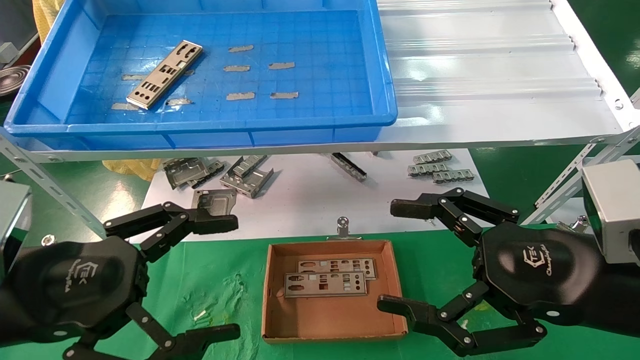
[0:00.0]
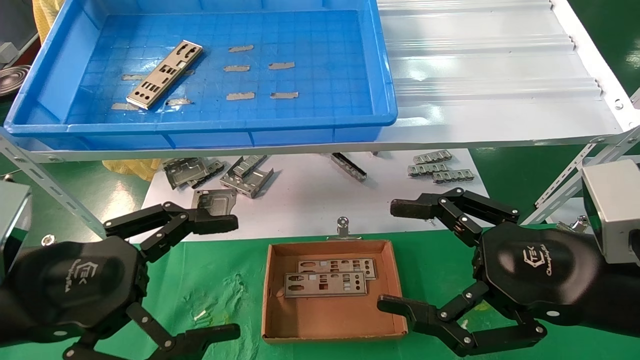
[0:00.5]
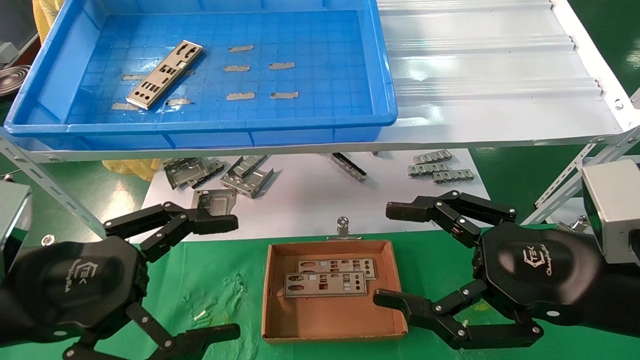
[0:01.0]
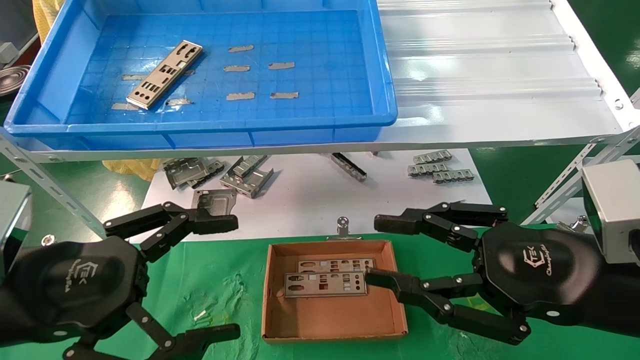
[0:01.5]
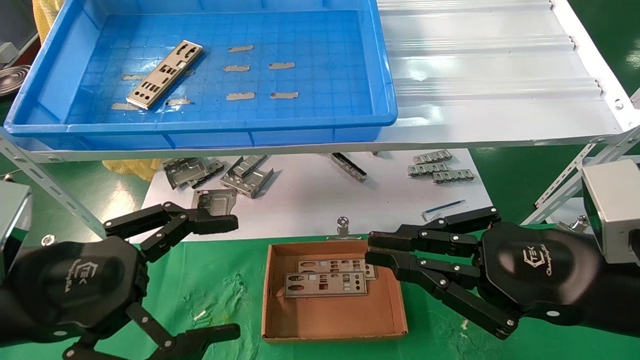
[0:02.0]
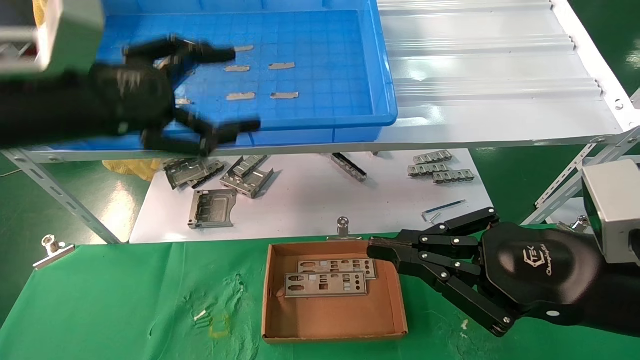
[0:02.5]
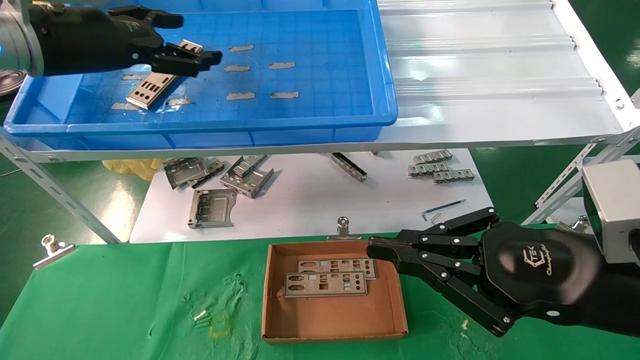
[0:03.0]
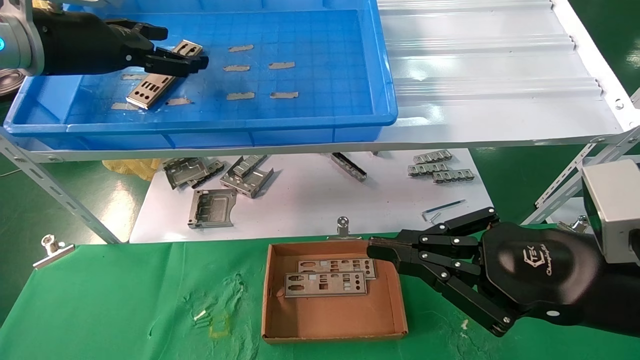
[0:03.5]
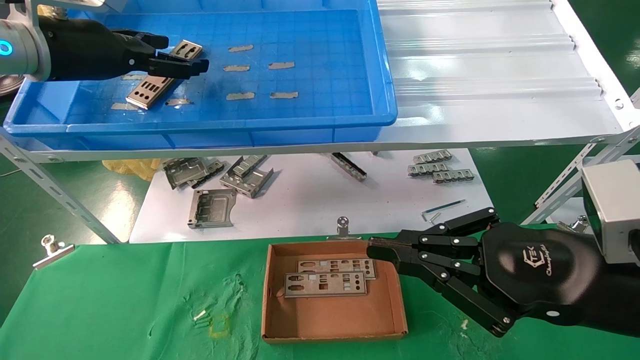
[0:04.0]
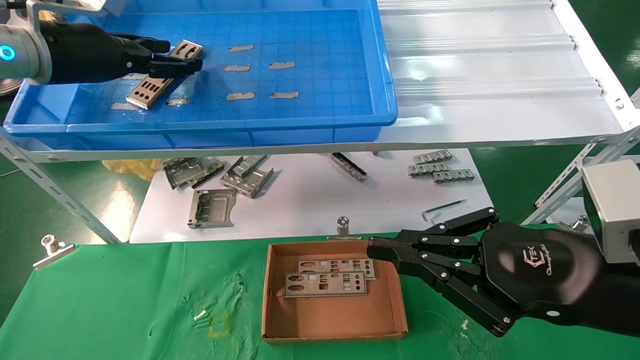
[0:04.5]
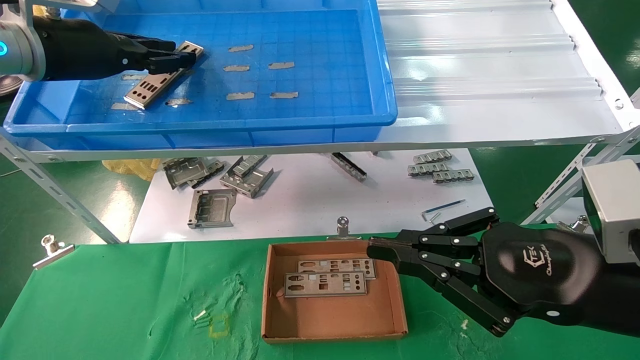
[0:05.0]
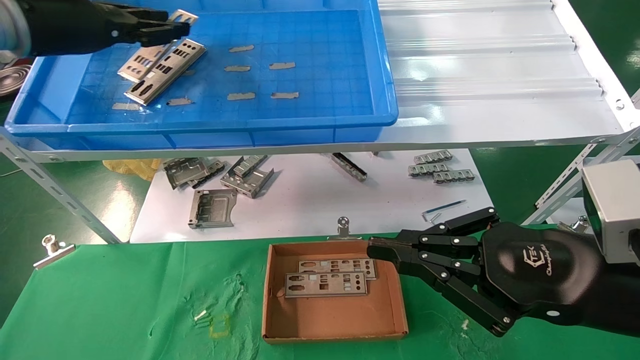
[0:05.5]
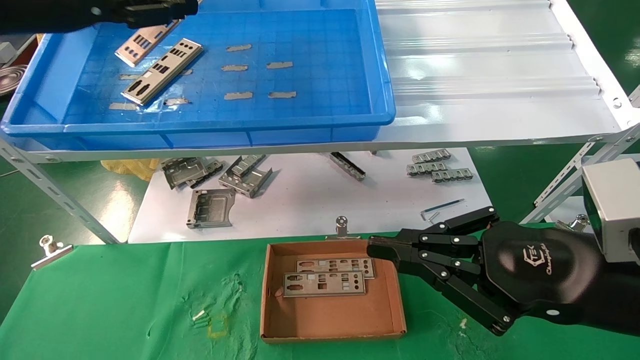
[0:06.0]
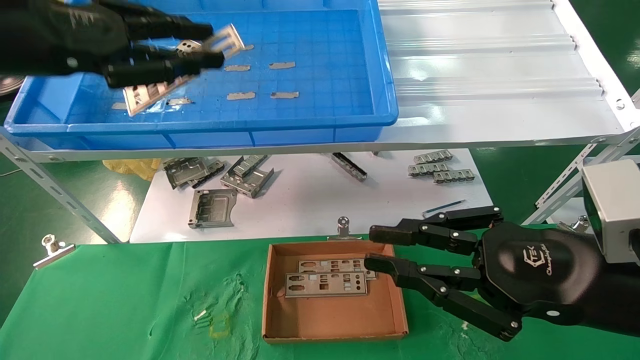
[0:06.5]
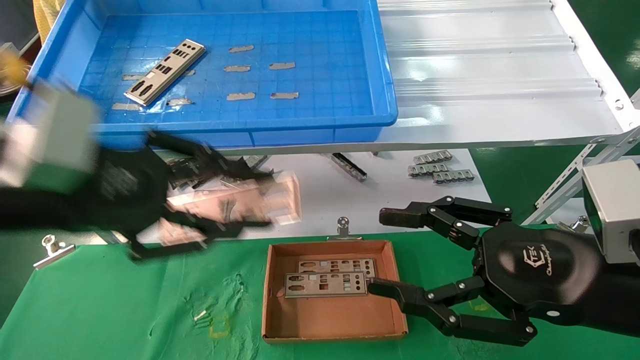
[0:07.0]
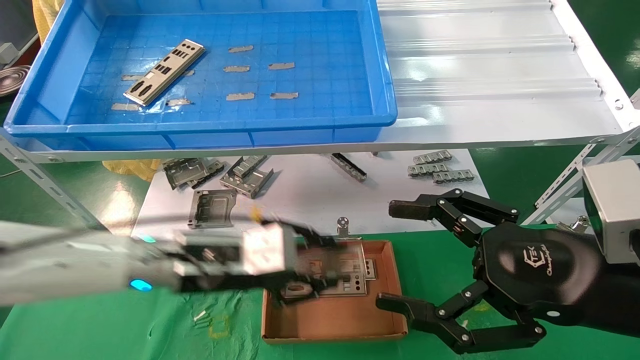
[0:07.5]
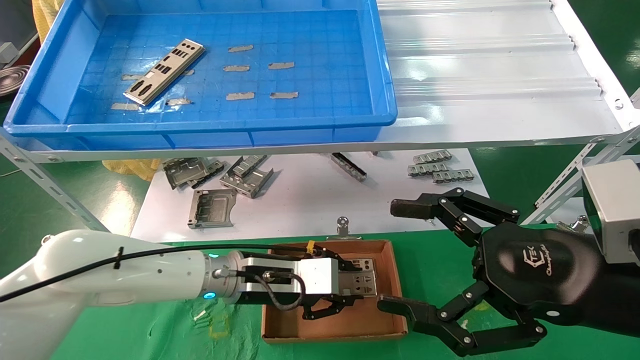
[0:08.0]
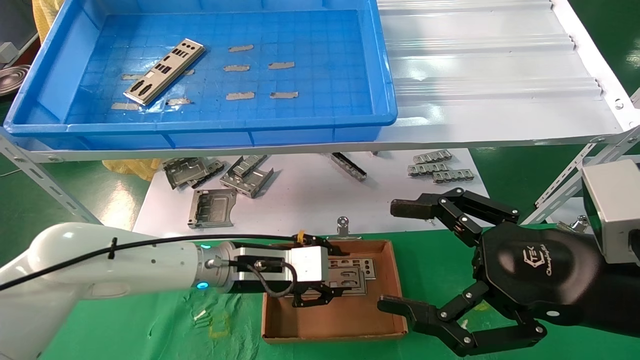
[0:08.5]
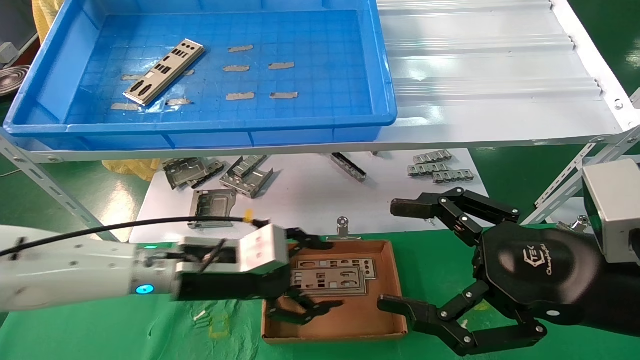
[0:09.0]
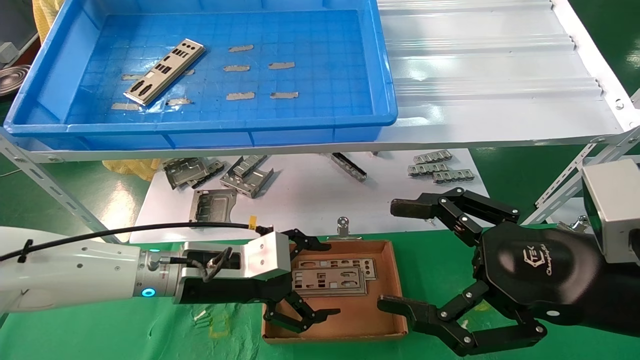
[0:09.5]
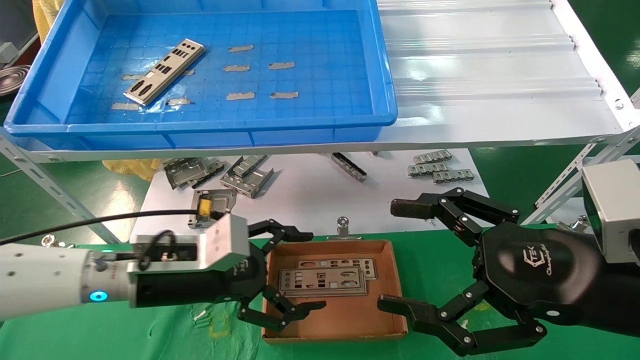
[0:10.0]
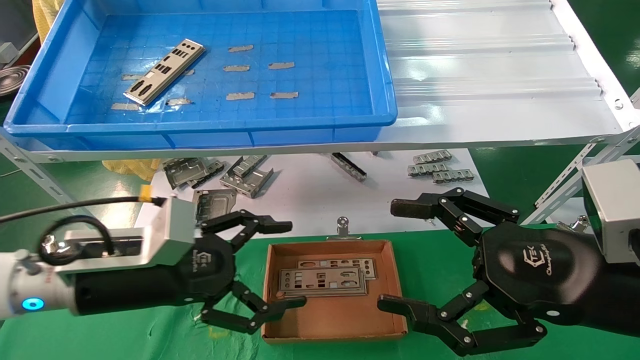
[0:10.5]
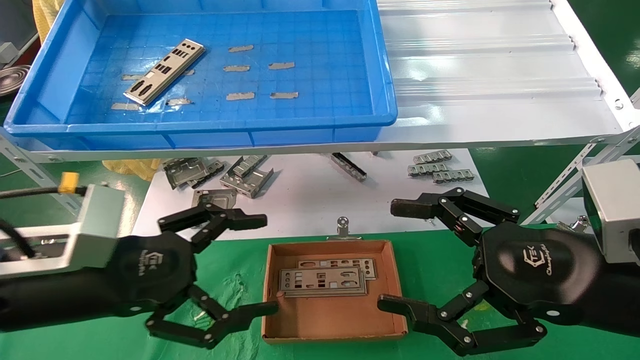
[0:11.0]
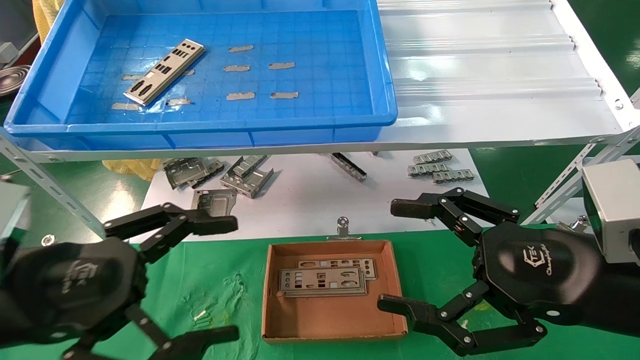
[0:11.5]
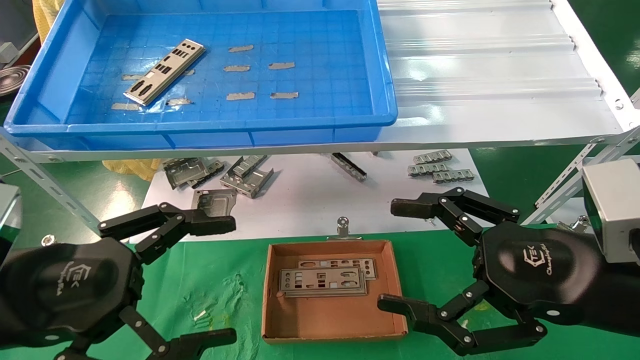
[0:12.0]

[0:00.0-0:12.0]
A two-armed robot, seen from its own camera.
Task of the whole recording: pick up the parts on the tray and put them in the cardboard box.
Step, 0:02.5 to 0:05.0: Pick up the IO bracket from the container box.
Step, 0:05.5 to 0:08.5: Place the IO bracket into the ingredient slot.
0:00.0 to 0:02.0: The right gripper closes up.
0:02.0 to 0:04.0: The left gripper moves forward and upward, approximately 25 cm.
0:04.0 to 0:06.0: The left gripper heads backward, covering some 5 cm, and closes.
0:06.0 to 0:08.0: The right gripper opens its fingers, while the left gripper goes about 40 cm downward and to the right.
0:08.0 to 0:10.0: The left gripper moves to the left and backward, about 10 cm, and opens its fingers.
0:10.0 to 0:12.0: The left gripper moves backward, to the left and upward, some 15 cm.

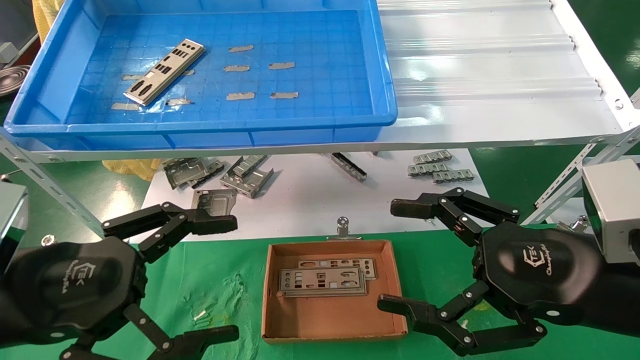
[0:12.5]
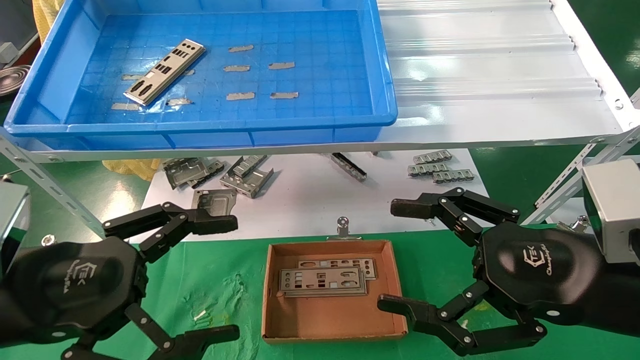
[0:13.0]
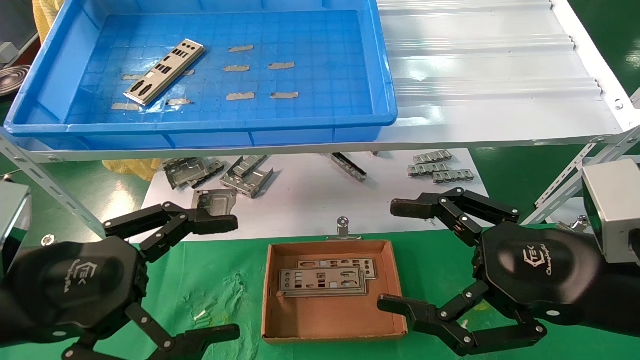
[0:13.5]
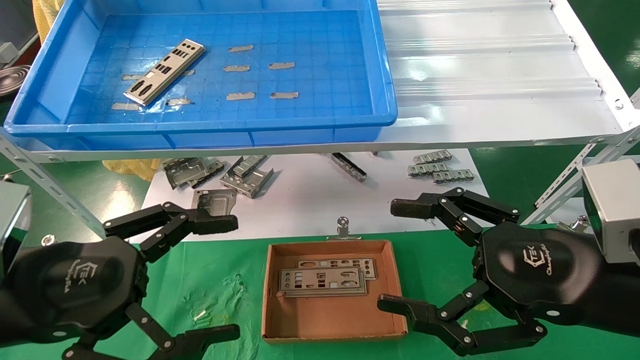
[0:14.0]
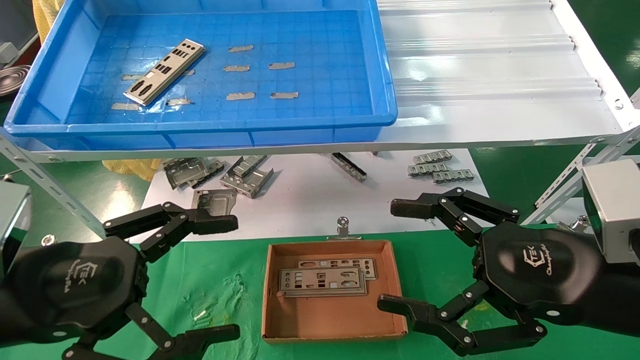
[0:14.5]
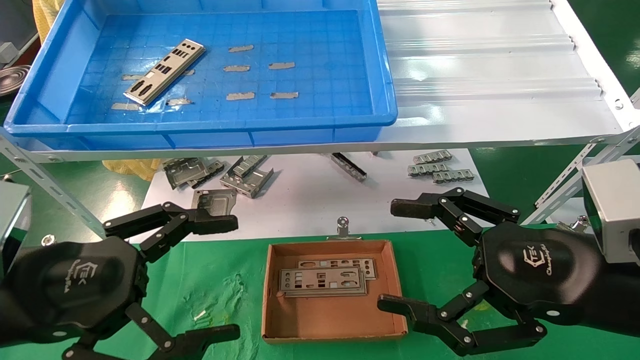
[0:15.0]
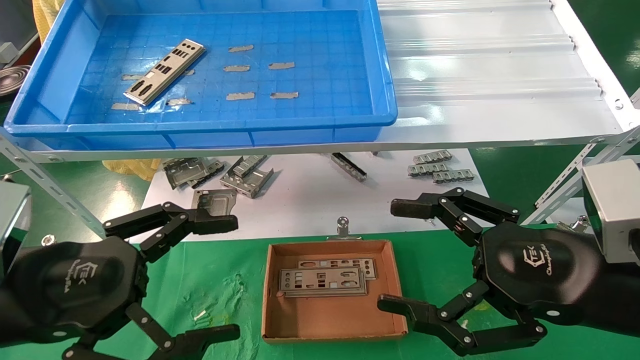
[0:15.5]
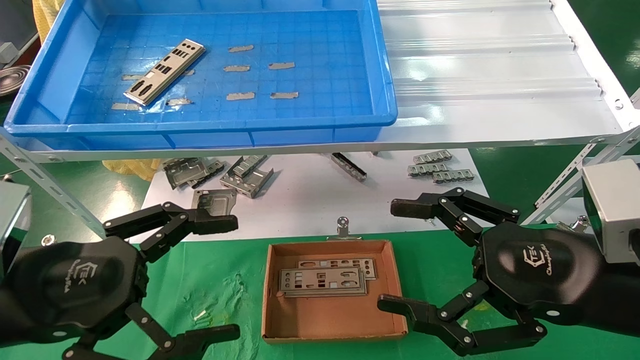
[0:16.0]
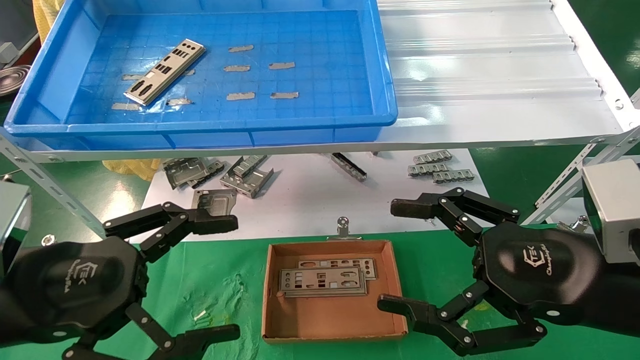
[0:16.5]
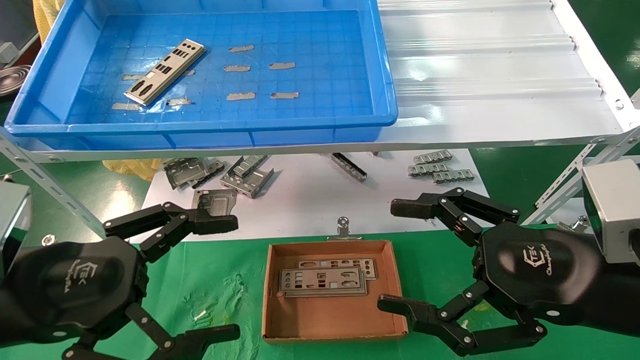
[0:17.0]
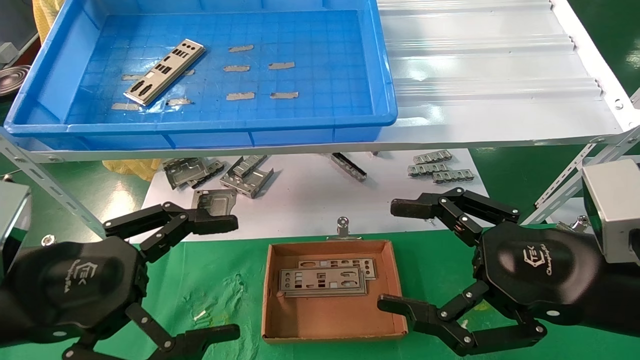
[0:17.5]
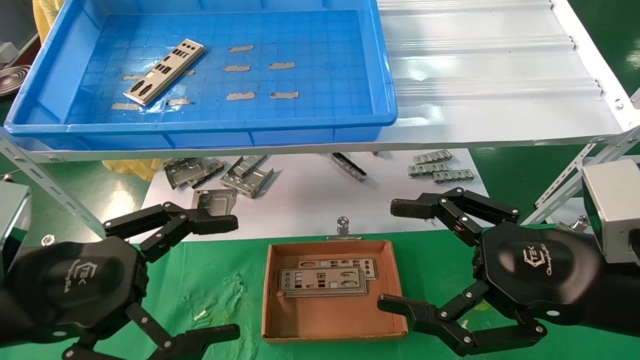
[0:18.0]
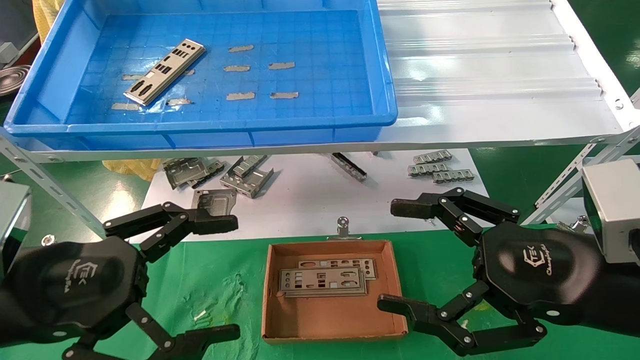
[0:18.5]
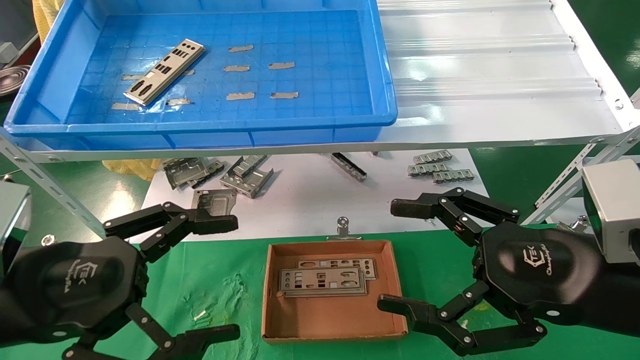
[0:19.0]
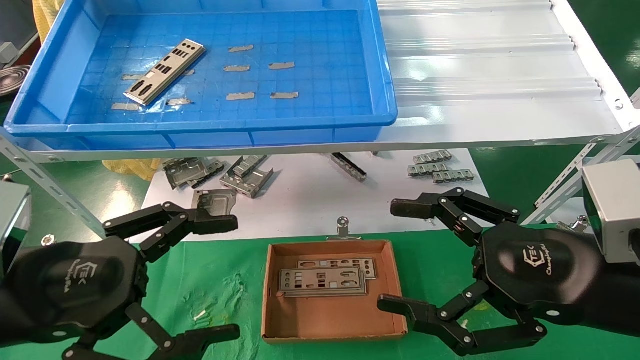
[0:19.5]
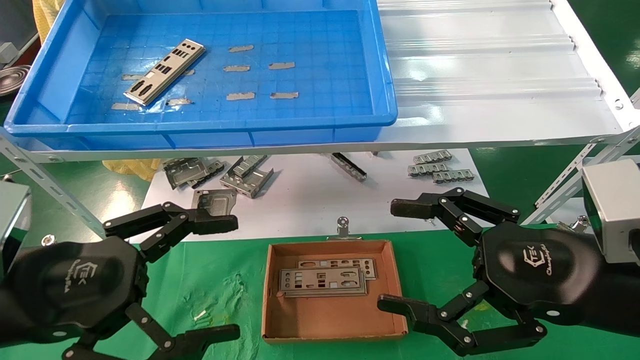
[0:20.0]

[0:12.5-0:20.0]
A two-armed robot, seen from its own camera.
Task of the whole recording: pick up the parts on the tray and put them in the cardboard box.
0:12.5 to 0:20.0: Both grippers stay about where they are.
